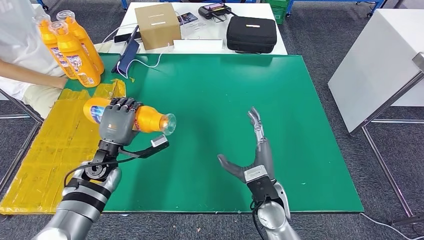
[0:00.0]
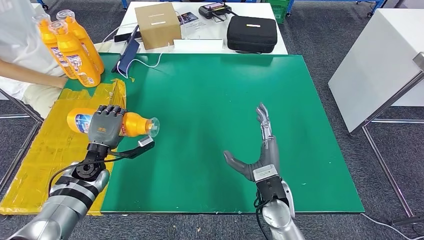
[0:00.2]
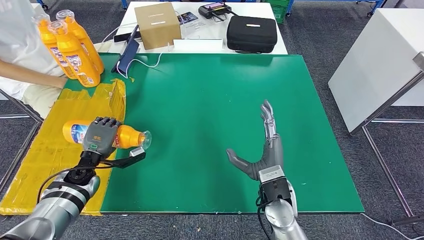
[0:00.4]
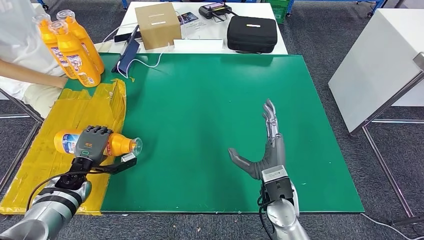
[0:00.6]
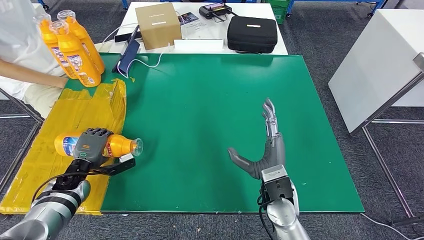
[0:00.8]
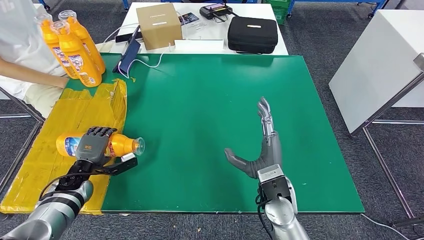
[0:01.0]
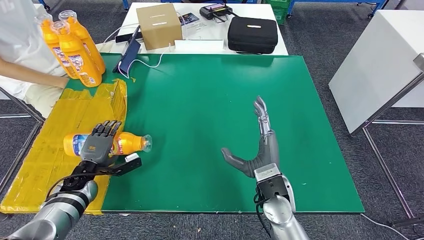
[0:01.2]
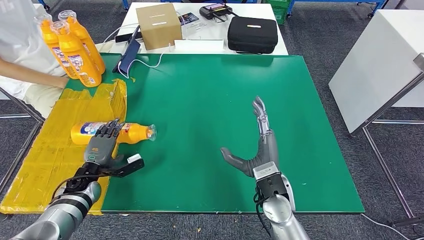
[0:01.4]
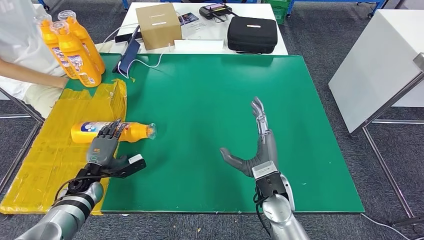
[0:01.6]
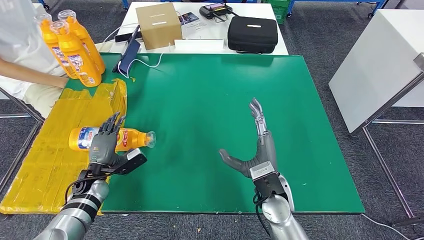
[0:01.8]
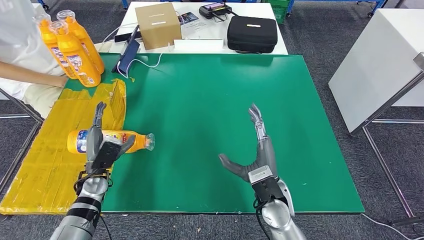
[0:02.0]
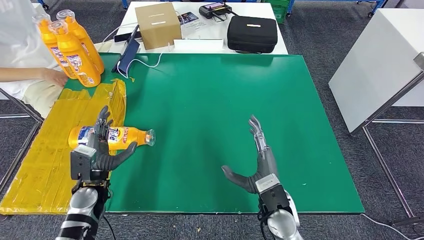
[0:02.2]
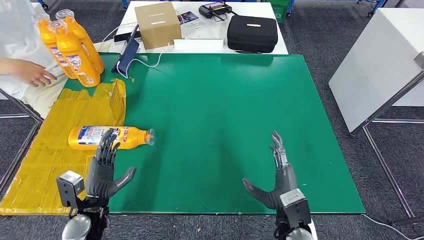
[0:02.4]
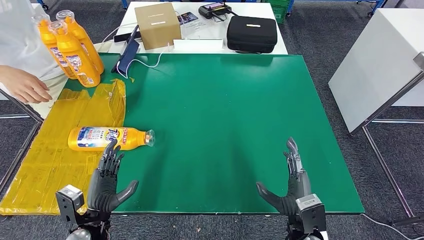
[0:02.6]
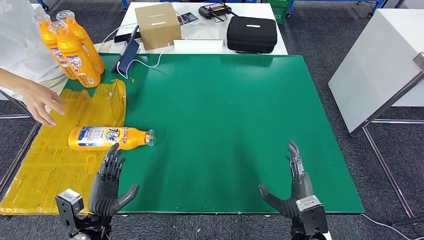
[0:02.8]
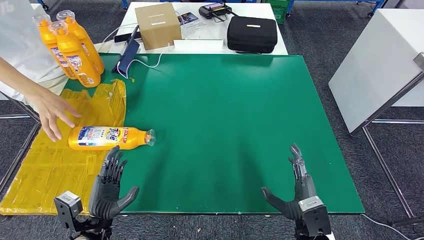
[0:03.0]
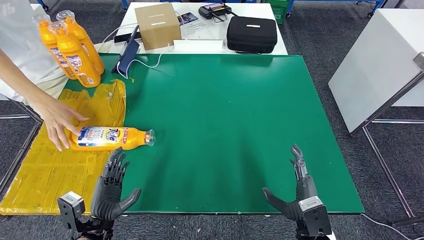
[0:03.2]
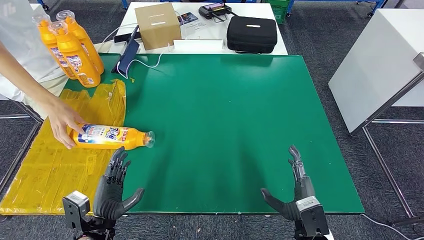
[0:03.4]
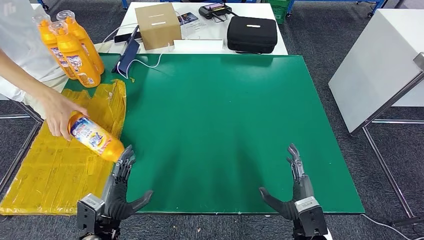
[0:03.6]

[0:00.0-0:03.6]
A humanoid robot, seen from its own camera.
Step, 0:00.0 to 0:03.6: Flip the fast-moving consumer goods bottle to the front side.
0:00.0 to 0:01.8: The left hand shifts some 10 cm downward and to the left.
0:01.8 to 0:03.6: The left hand is displaced backward and to the right by approximately 15 cm; the right hand heads backward, to the right and downward, covering some 15 cm.
